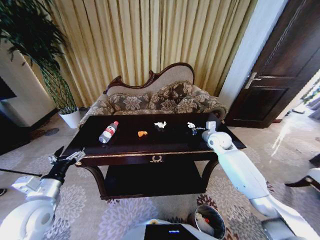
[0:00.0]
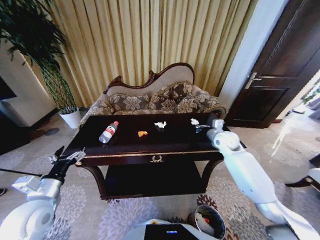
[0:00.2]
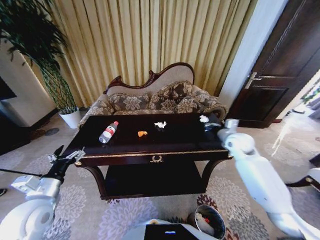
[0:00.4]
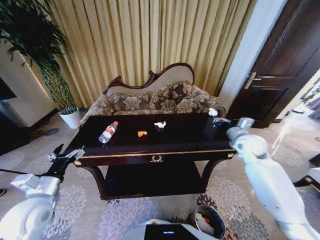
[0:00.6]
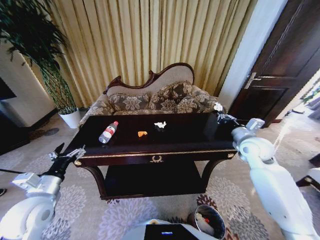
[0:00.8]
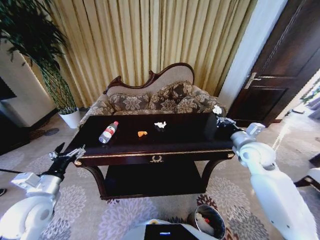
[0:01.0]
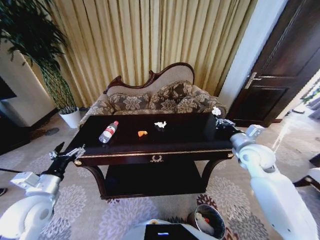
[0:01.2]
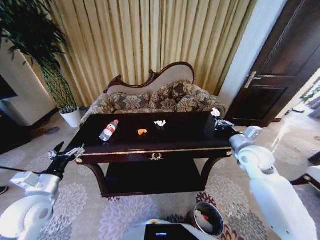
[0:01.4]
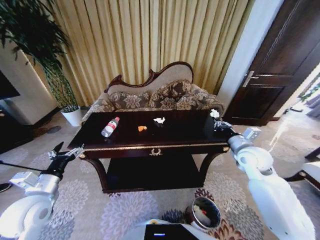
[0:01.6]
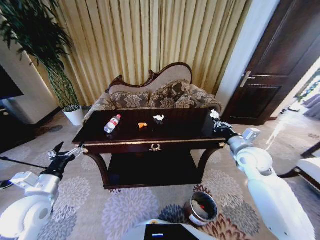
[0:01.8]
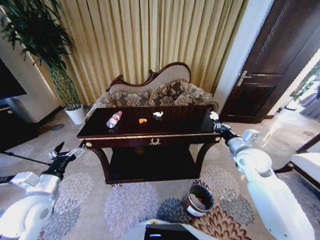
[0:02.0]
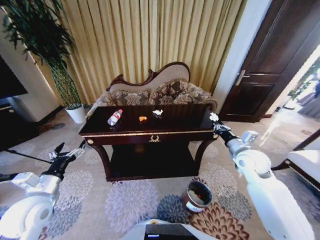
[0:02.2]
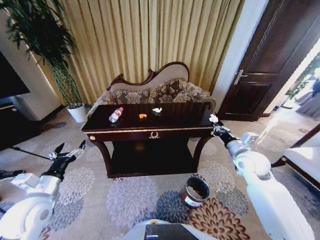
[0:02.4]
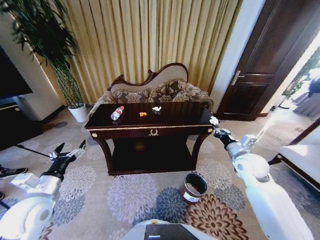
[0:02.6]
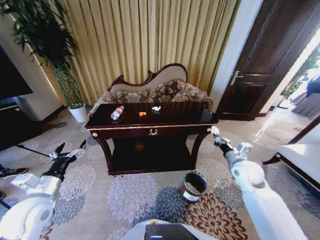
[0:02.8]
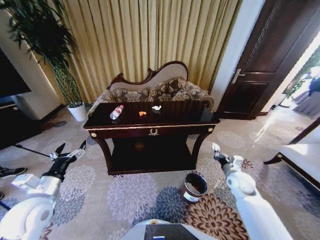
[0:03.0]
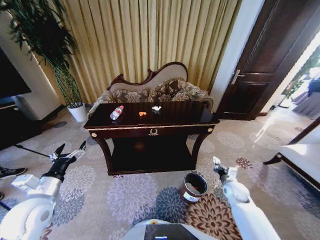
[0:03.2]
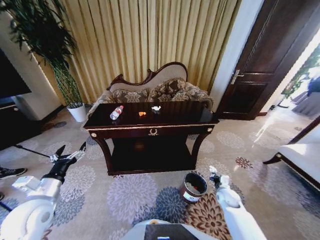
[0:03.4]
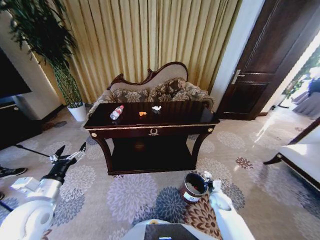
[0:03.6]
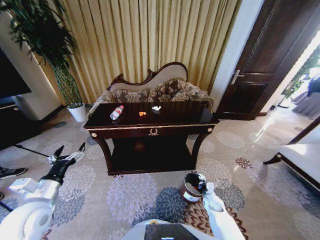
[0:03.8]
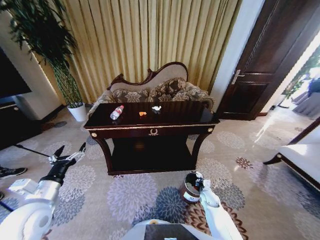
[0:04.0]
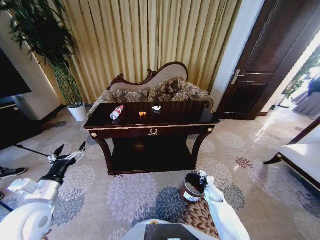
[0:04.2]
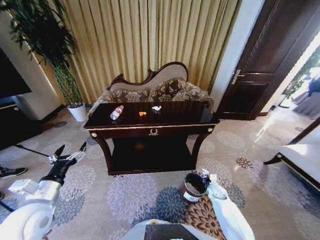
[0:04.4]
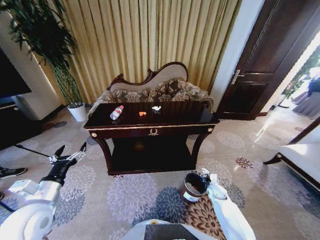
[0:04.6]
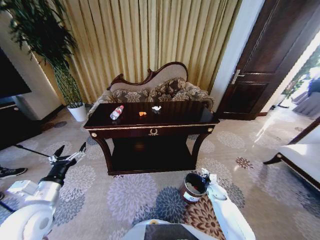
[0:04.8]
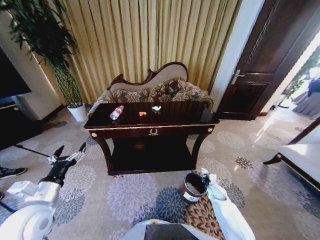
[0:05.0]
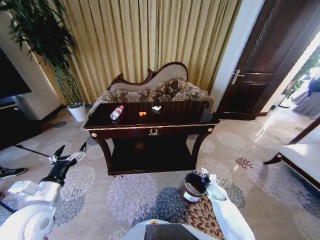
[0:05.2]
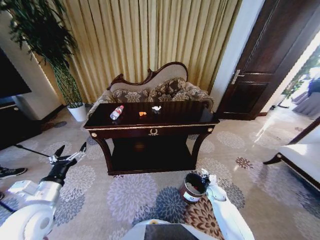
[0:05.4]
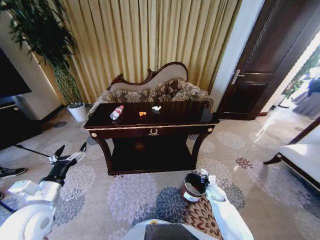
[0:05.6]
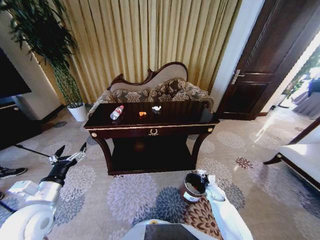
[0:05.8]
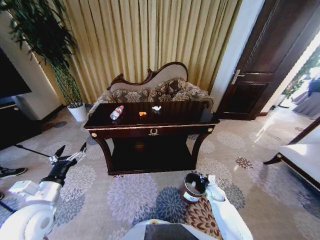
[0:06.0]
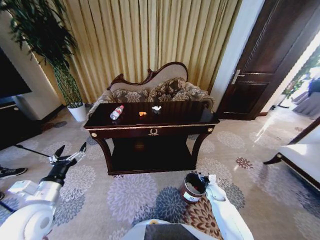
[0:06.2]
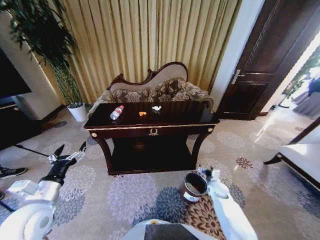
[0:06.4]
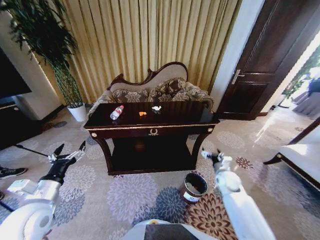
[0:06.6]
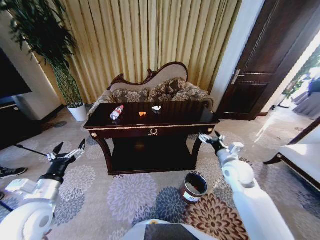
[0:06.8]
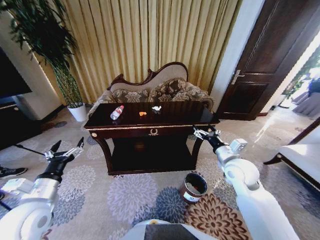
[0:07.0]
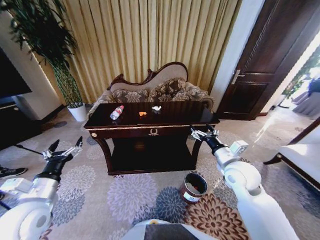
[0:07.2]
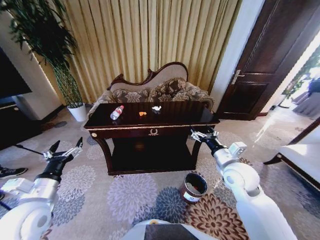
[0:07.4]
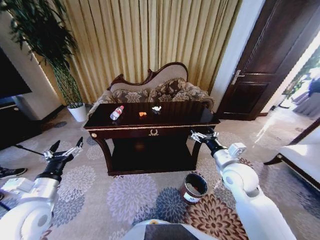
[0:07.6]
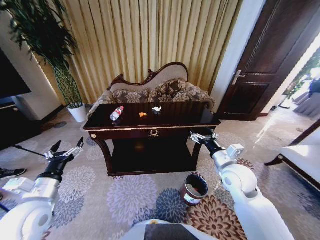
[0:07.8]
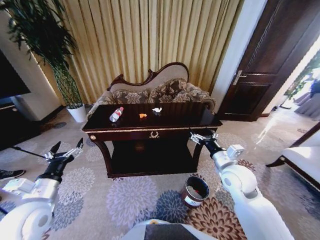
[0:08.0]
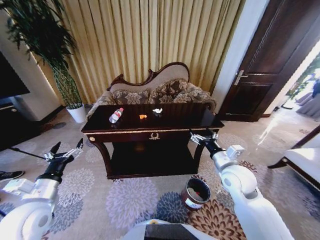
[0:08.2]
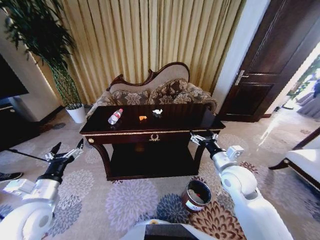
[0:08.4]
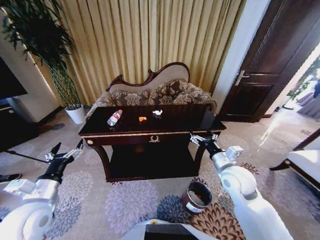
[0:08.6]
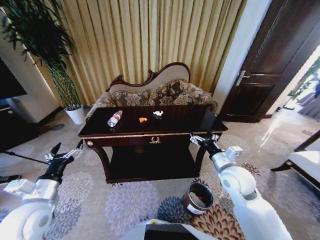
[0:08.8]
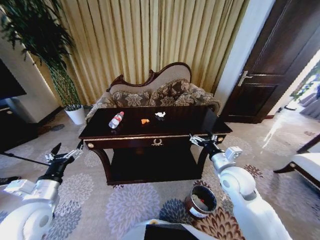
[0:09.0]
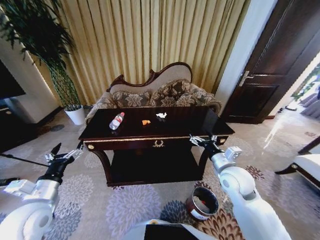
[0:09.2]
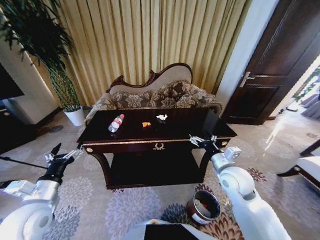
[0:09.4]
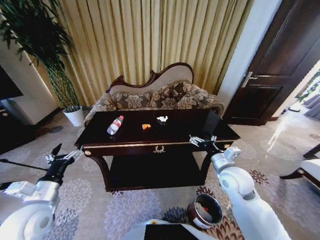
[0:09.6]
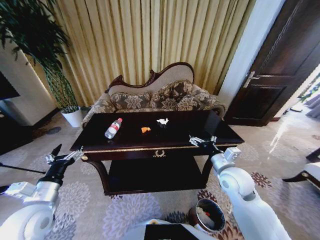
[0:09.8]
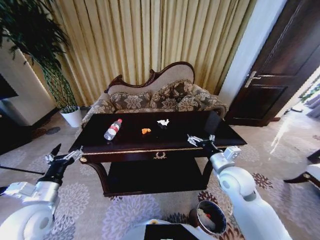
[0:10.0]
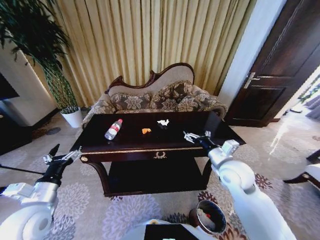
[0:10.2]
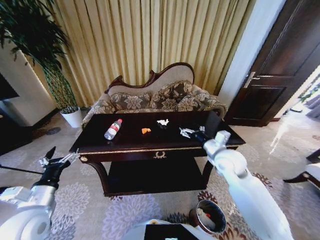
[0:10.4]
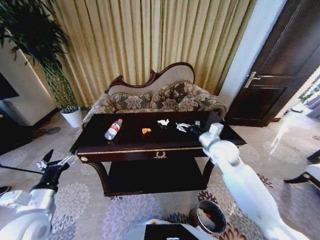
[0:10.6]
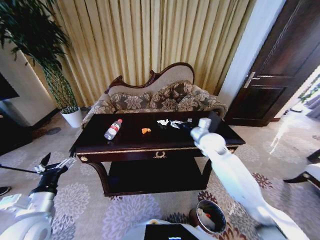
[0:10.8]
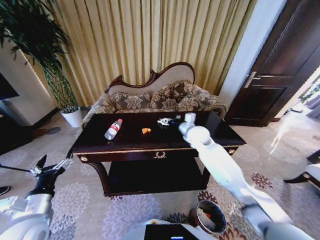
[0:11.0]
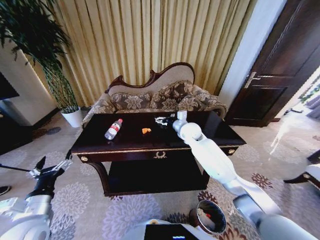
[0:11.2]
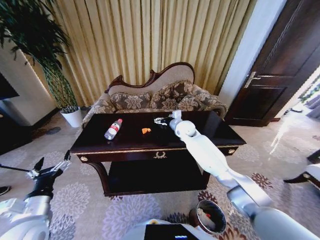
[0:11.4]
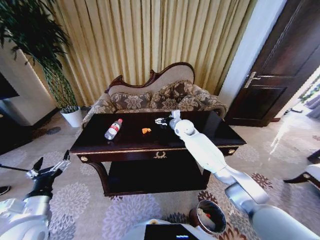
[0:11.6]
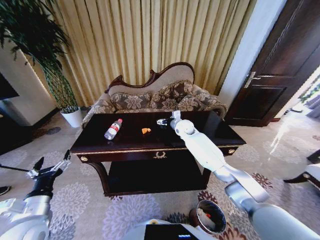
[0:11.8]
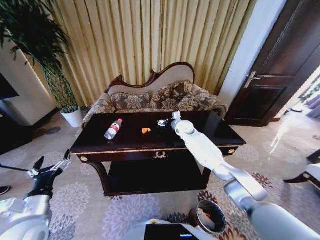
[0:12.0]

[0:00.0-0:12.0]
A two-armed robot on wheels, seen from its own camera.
Task of the whole recording: Move to the front of the table and place the trash on the table into the trash bin.
0:00.0 to 0:01.6: The right gripper goes some 15 cm backward.
0:01.6 to 0:03.0: The right gripper goes about 15 cm downward.
0:03.0 to 0:04.4: The right gripper shifts approximately 15 cm downward.
0:04.4 to 0:06.0: There are only small adjustments of the grippers.
0:06.0 to 0:07.6: The right gripper heads upward, covering roughly 30 cm, and opens.
0:09.0 to 0:10.4: The right gripper is displaced forward by roughly 5 cm.
0:10.4 to 0:12.0: The right gripper goes approximately 25 cm forward and to the left.

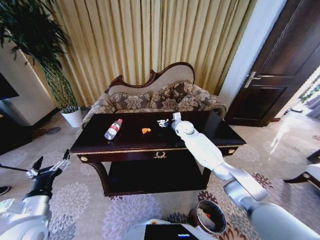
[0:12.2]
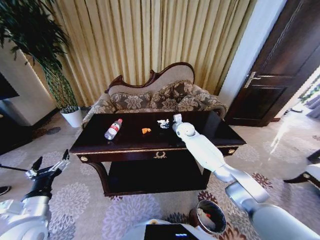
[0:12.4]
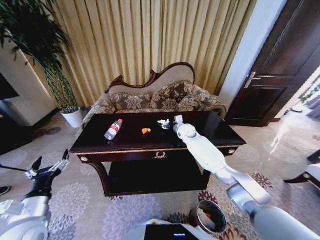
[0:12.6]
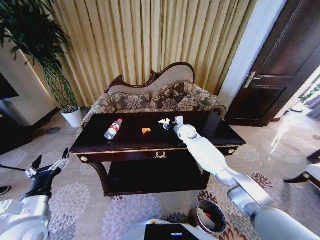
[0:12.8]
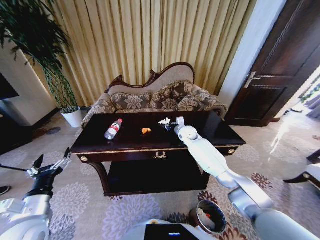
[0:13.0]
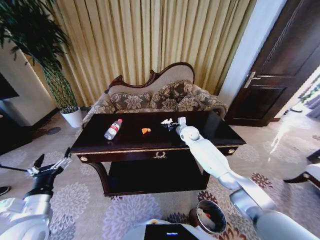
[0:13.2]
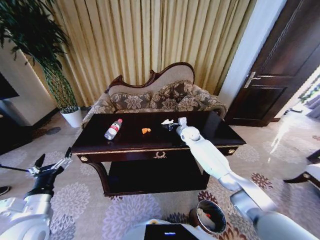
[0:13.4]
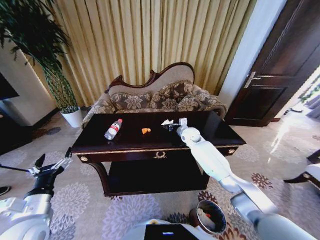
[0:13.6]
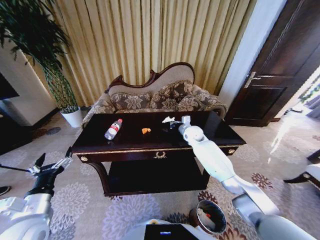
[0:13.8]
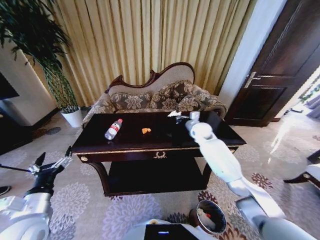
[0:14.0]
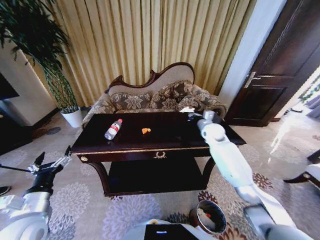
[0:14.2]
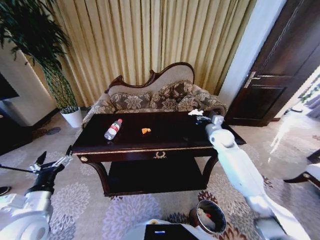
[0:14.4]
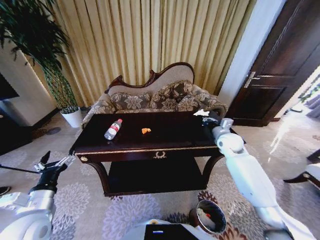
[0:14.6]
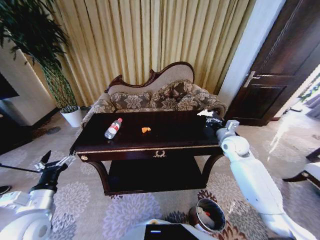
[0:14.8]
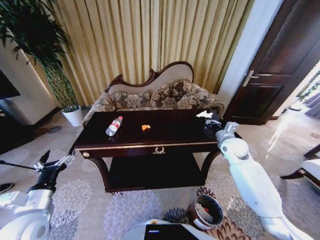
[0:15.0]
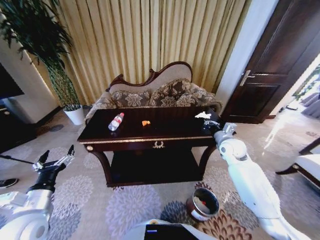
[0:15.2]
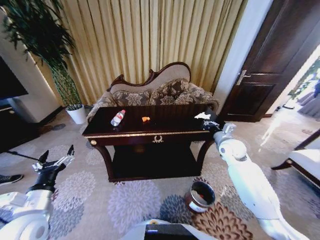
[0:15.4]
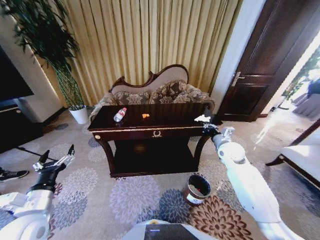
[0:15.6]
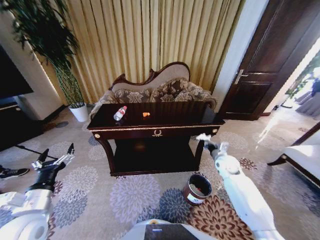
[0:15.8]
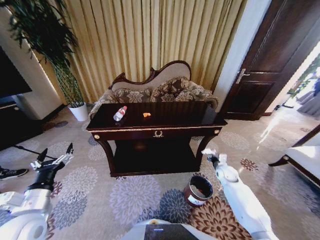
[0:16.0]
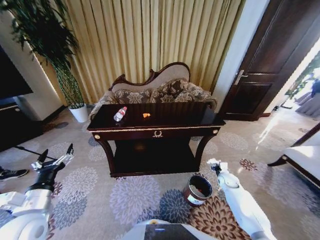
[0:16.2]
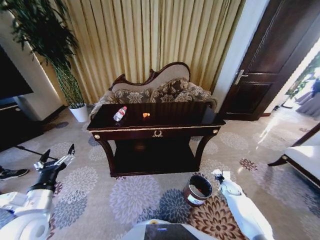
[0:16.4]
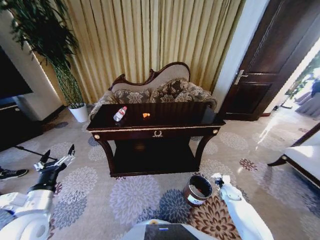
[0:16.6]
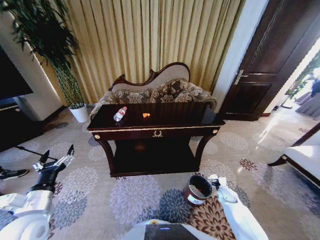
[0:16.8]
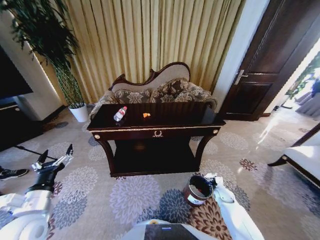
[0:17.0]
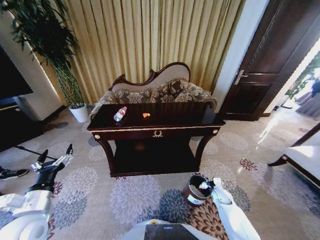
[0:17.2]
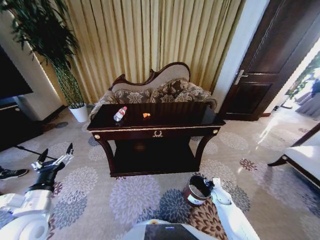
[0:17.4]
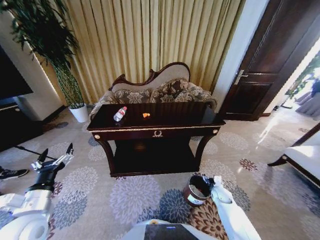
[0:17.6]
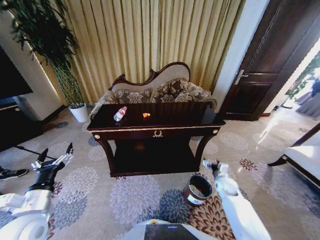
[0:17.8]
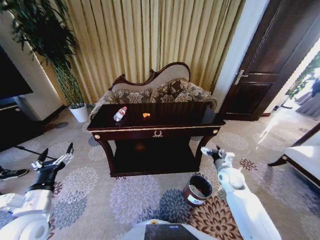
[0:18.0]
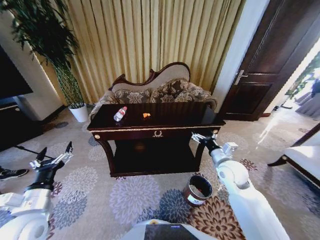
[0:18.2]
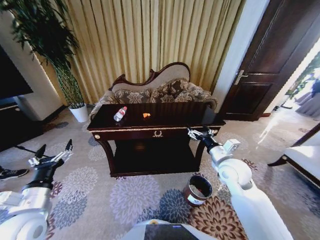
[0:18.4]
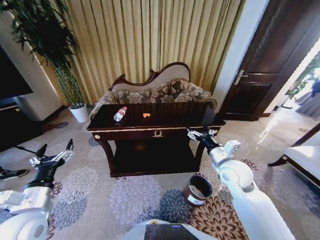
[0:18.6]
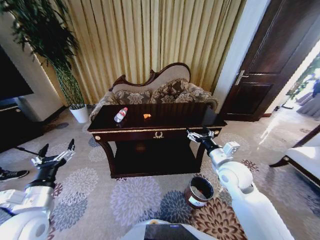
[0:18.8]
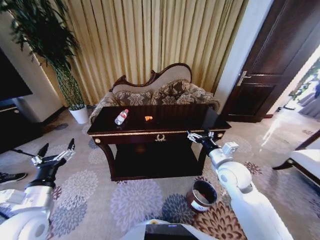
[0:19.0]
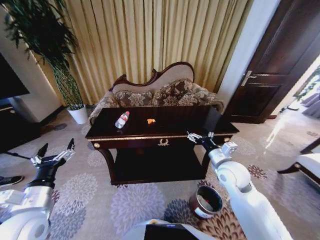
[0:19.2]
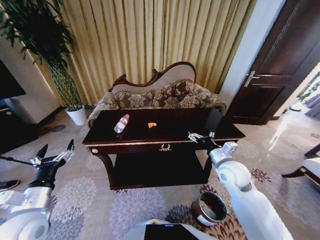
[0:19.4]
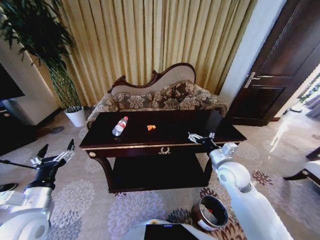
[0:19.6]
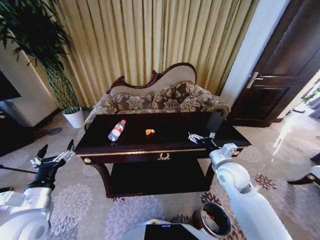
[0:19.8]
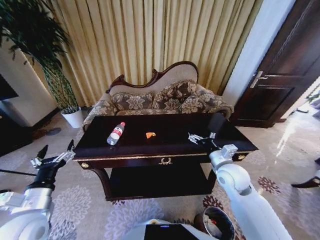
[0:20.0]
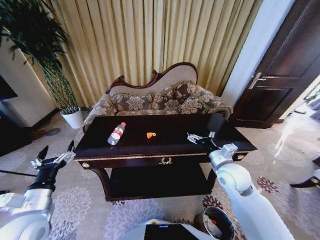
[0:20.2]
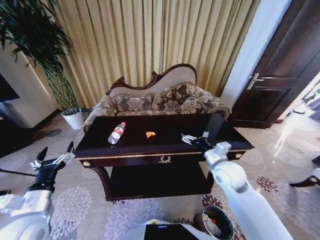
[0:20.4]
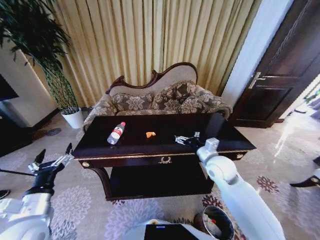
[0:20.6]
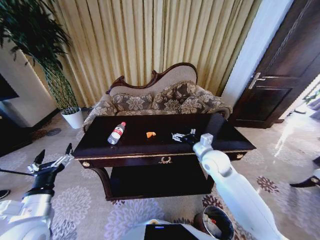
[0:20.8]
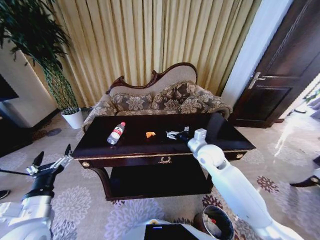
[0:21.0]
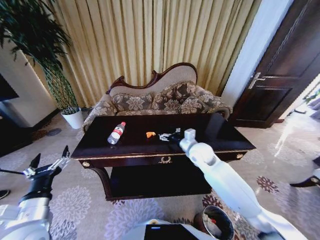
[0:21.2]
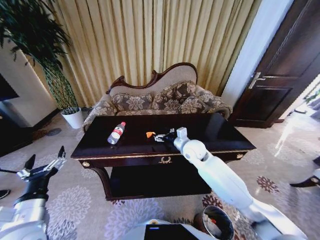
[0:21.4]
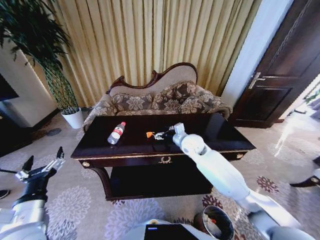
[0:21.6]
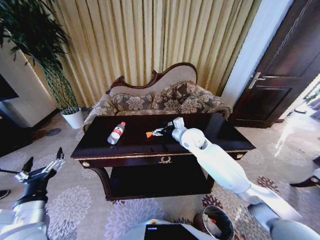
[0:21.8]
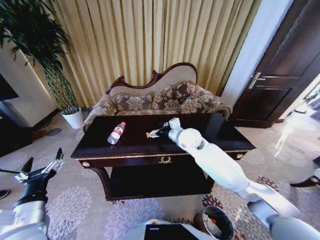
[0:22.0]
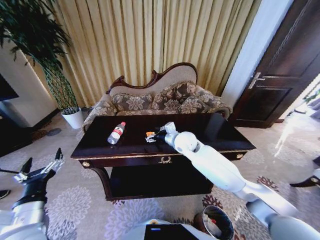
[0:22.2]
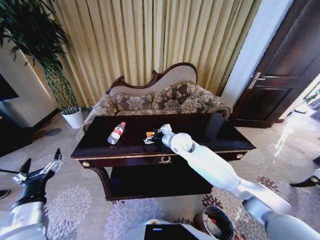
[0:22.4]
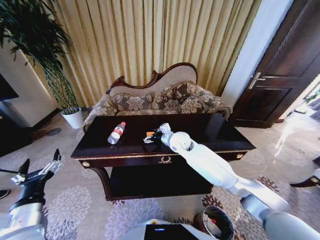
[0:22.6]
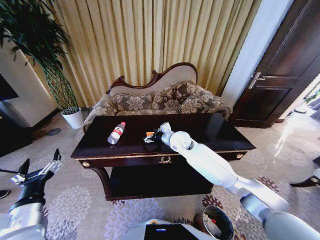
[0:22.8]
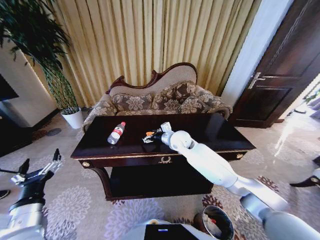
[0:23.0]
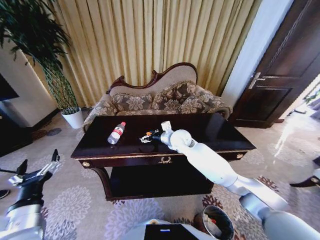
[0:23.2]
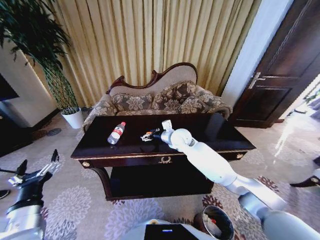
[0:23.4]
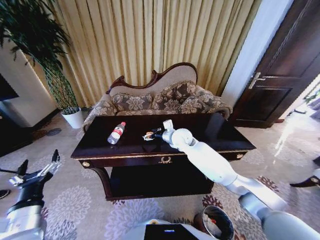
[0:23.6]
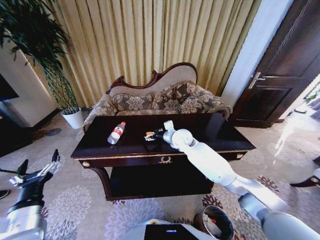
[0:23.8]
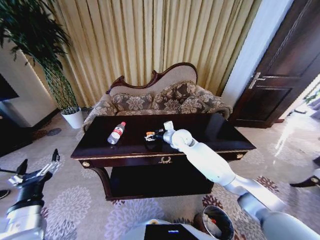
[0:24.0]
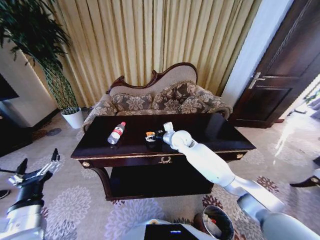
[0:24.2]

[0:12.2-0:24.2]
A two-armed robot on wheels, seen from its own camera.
Task of the whole recording: Move to the front of the table and place the trash on the table into the trash bin.
0:12.2 to 0:13.8: The right gripper shifts by roughly 5 cm, and closes up.
0:13.8 to 0:15.2: The right gripper is displaced to the right and backward by some 20 cm.
0:15.2 to 0:16.6: The right gripper is displaced downward by roughly 30 cm.
0:16.6 to 0:18.2: The right gripper is displaced upward and to the left by about 30 cm, and opens its fingers.
0:19.8 to 0:21.2: The right gripper heads forward and to the left, covering about 15 cm.
0:21.2 to 0:22.6: The right gripper moves to the left and forward, about 10 cm.
0:22.6 to 0:24.2: The grippers move only a little.
